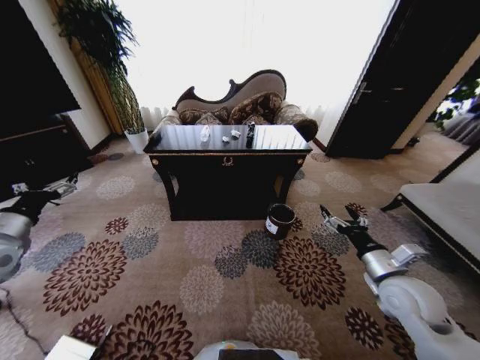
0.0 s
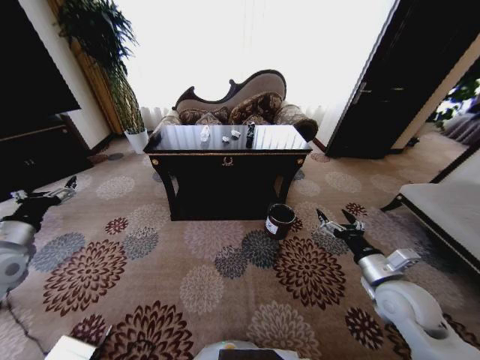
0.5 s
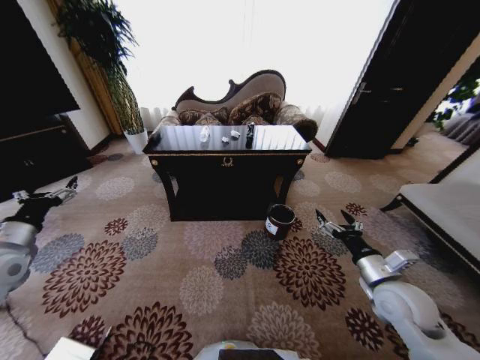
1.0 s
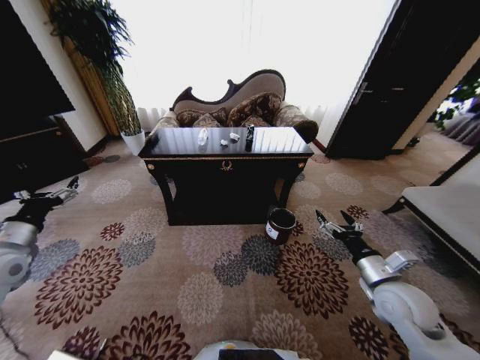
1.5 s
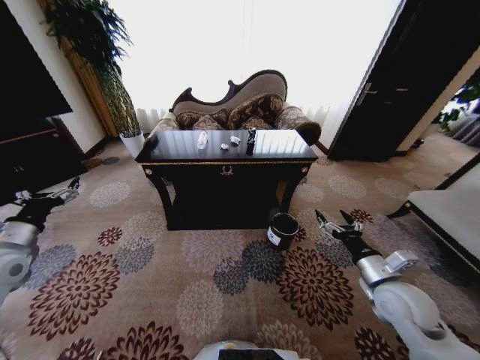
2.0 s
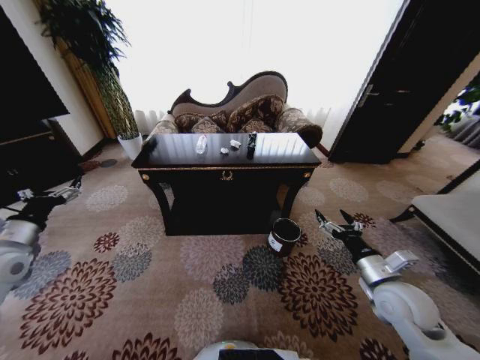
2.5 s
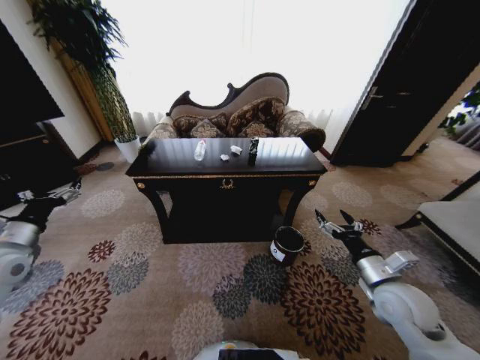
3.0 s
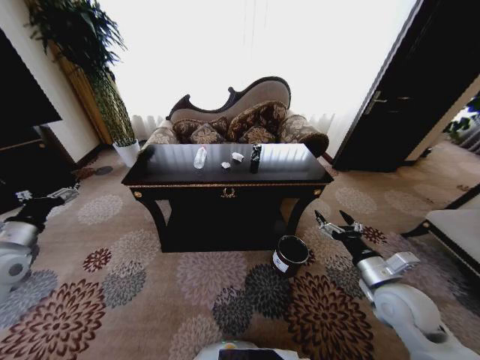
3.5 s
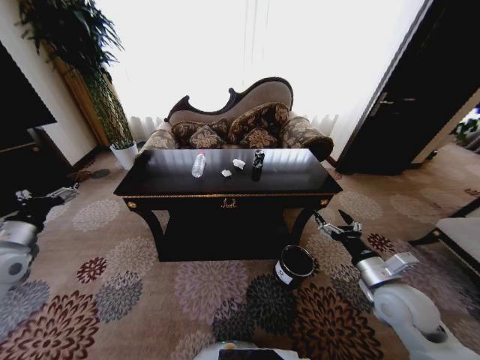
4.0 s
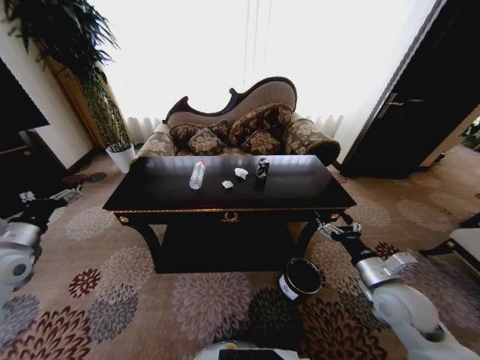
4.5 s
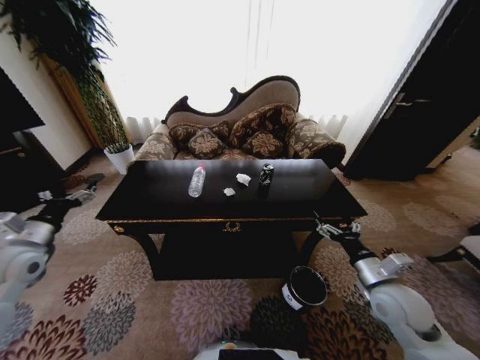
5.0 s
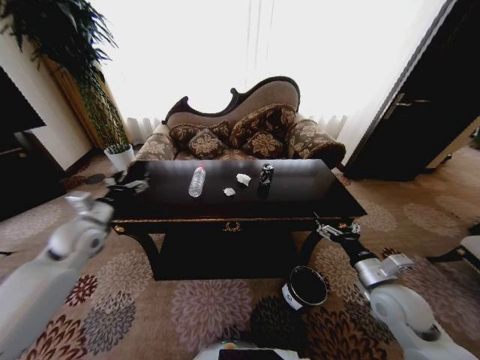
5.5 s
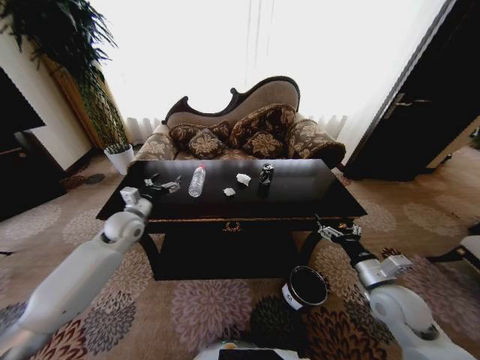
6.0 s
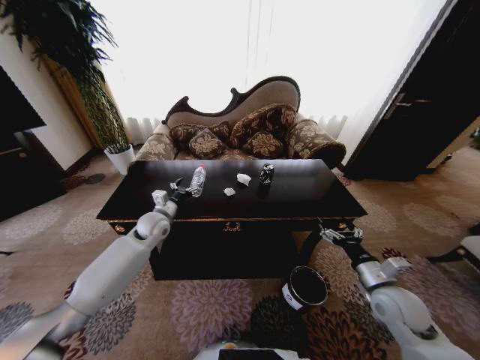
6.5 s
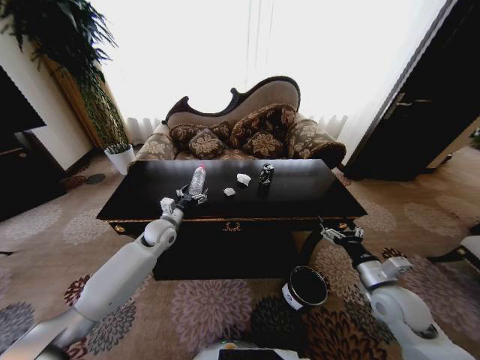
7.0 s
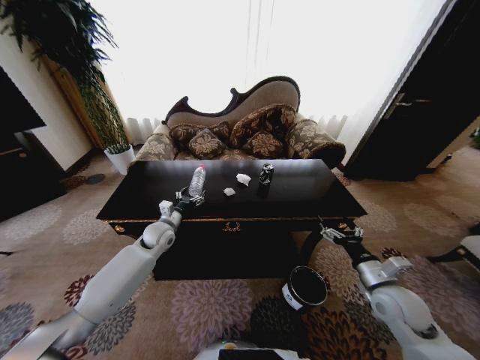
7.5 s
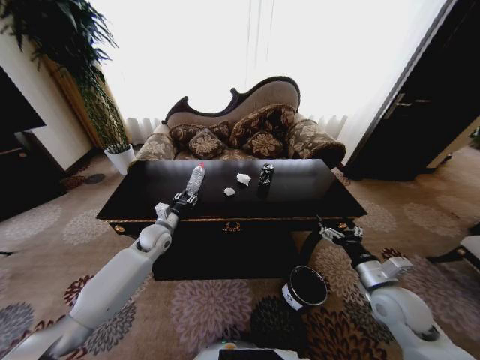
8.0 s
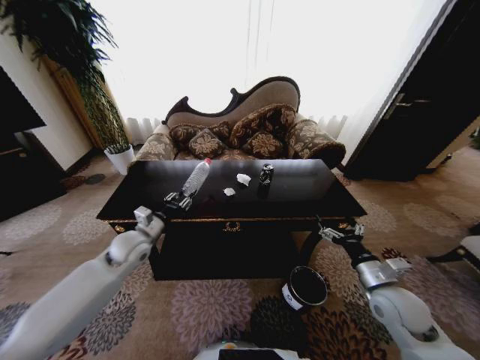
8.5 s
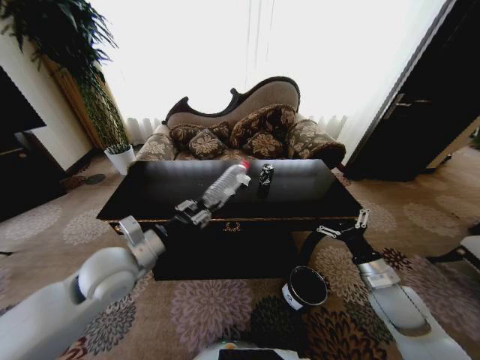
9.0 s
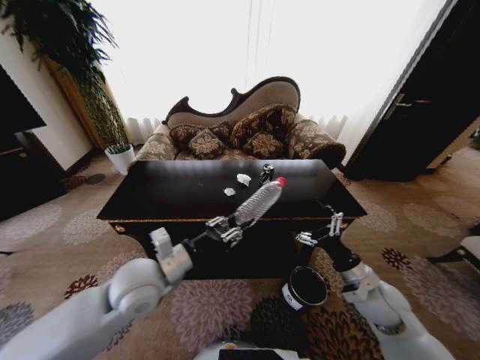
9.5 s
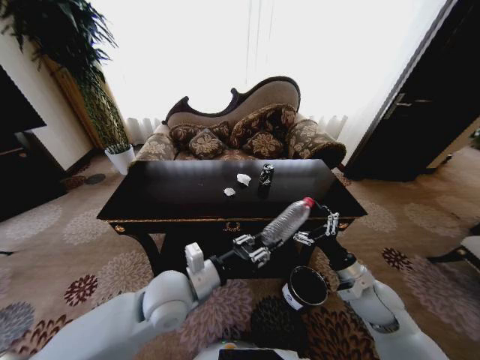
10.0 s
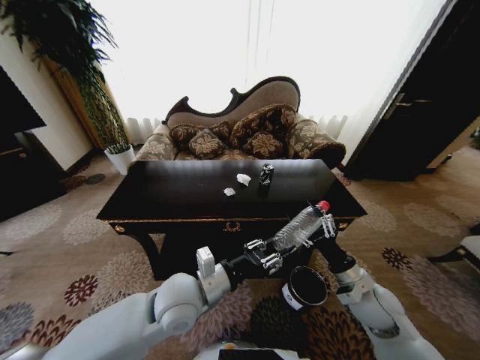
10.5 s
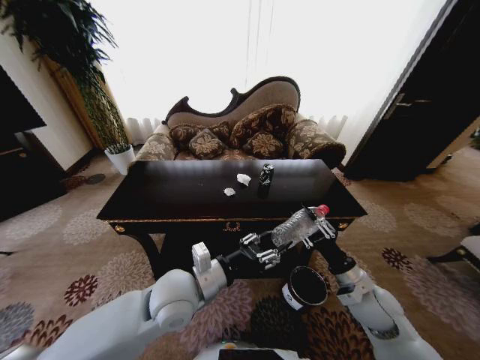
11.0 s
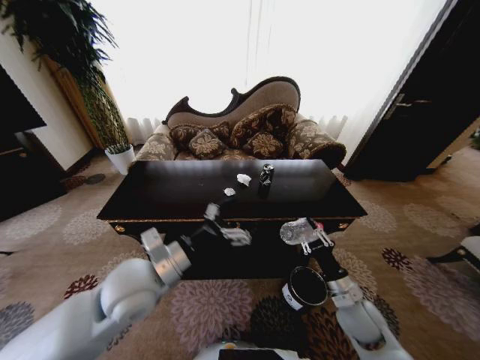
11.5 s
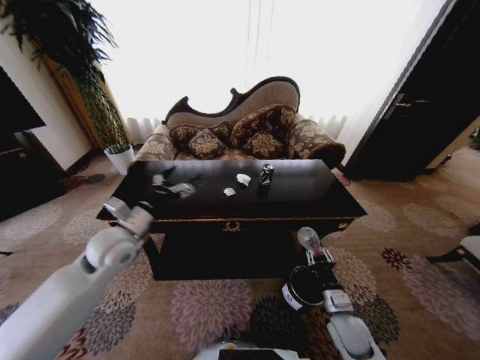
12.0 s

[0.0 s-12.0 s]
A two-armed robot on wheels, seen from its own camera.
Task of the whole recording: Move to the front of the table and place the trash on the table into the trash bin.
4.0 to 6.0 s: The left gripper shifts some 25 cm to the right and forward.
6.0 to 8.0 s: The left gripper travels downward and to the right by some 10 cm, and closes.
8.0 to 10.0 s: The left gripper shifts approximately 25 cm backward, to the right and upward.
10.0 to 12.0 s: The left gripper shifts approximately 20 cm to the left and forward, and opens its fingers, while the right gripper moves downward, some 10 cm, and closes up.

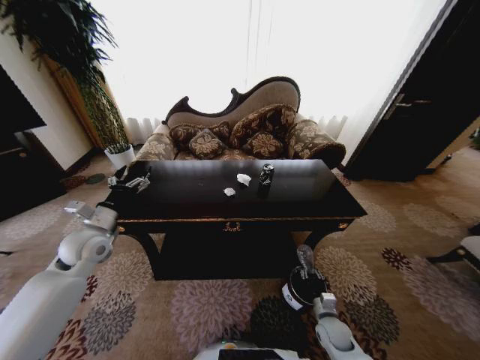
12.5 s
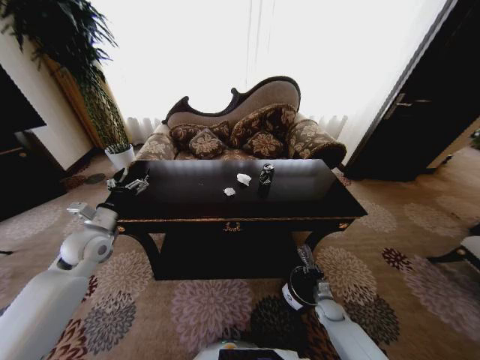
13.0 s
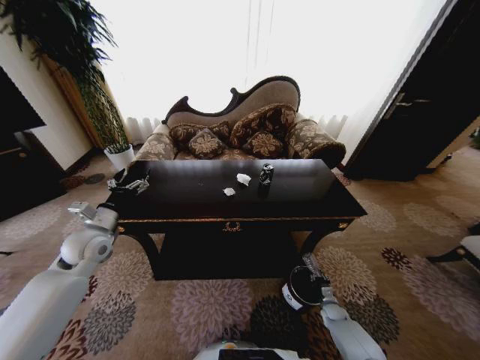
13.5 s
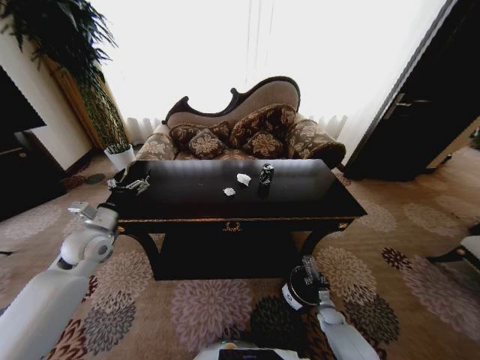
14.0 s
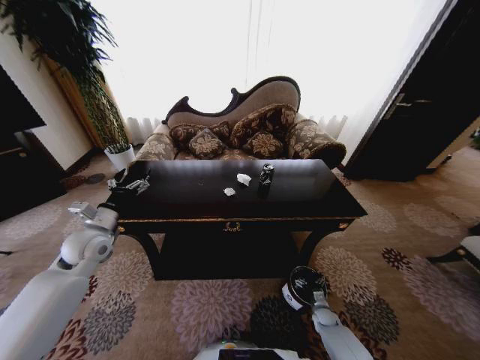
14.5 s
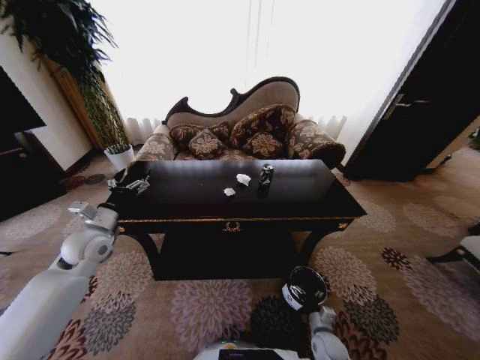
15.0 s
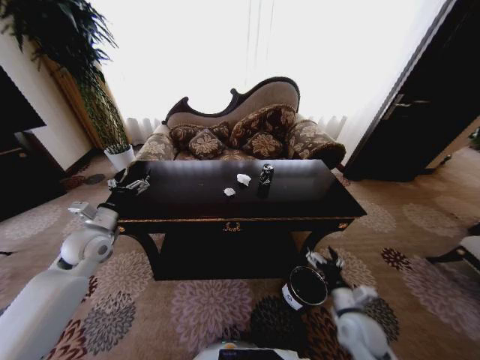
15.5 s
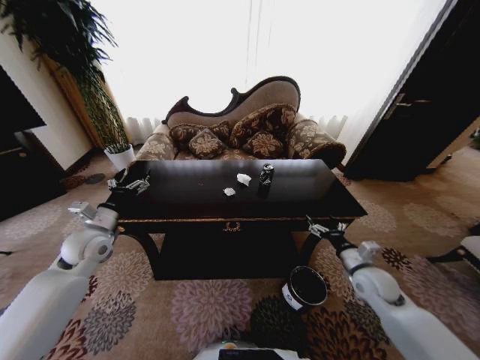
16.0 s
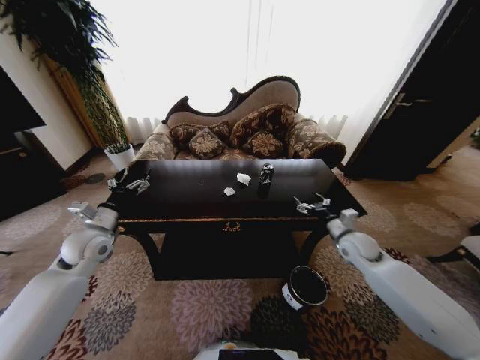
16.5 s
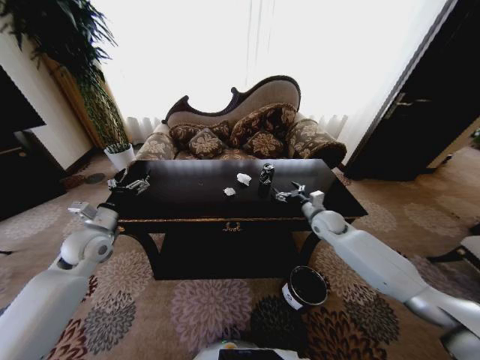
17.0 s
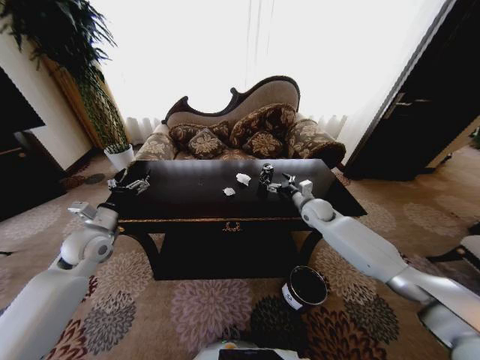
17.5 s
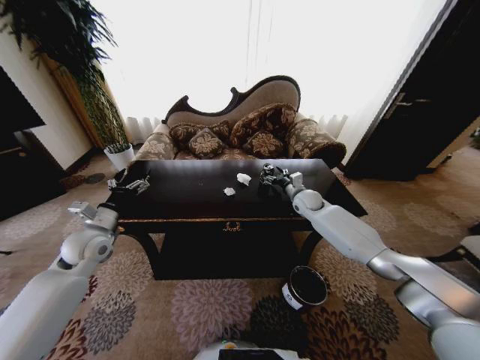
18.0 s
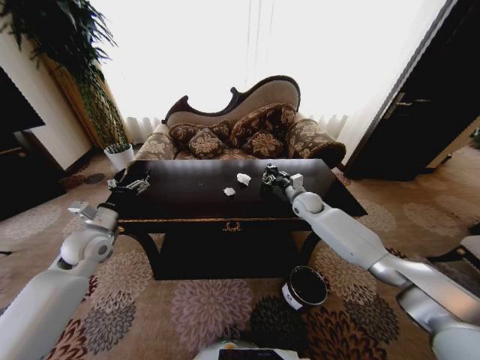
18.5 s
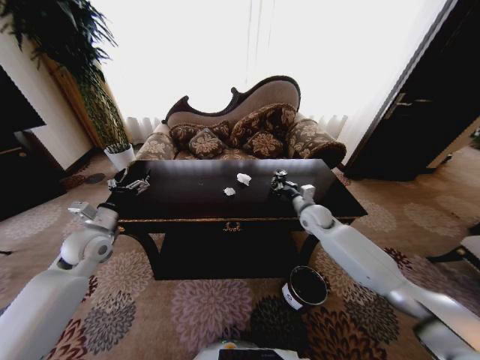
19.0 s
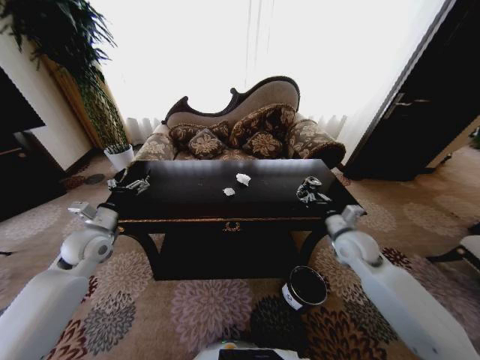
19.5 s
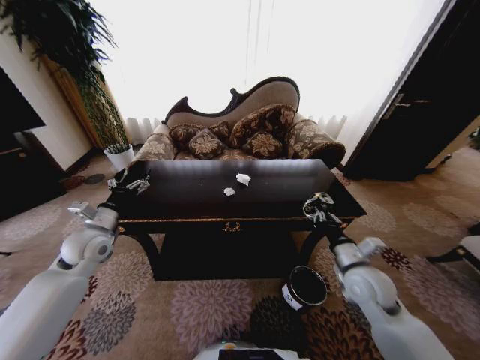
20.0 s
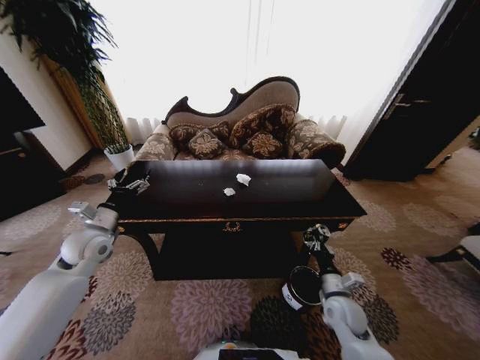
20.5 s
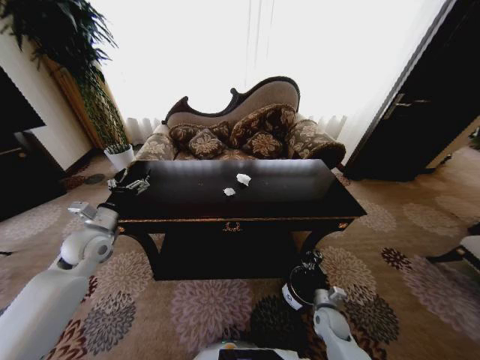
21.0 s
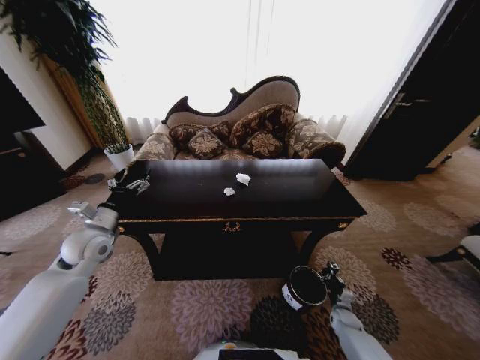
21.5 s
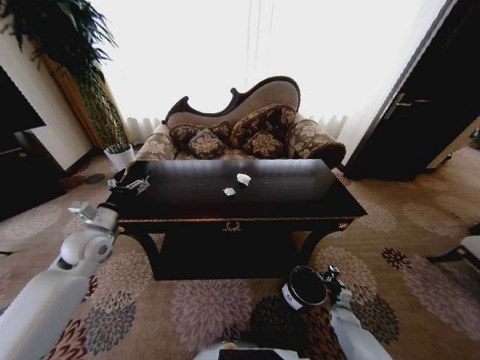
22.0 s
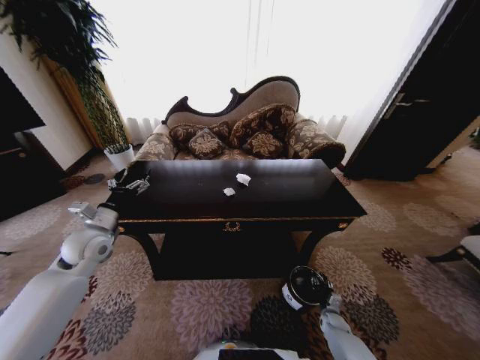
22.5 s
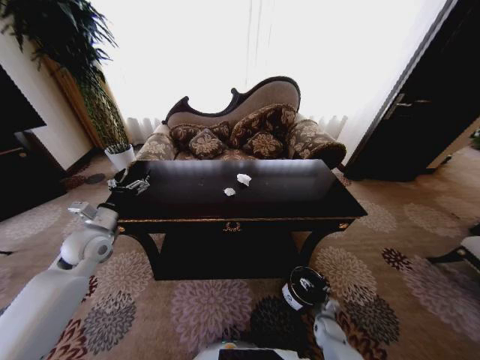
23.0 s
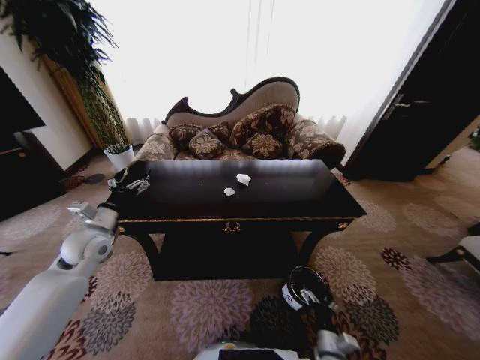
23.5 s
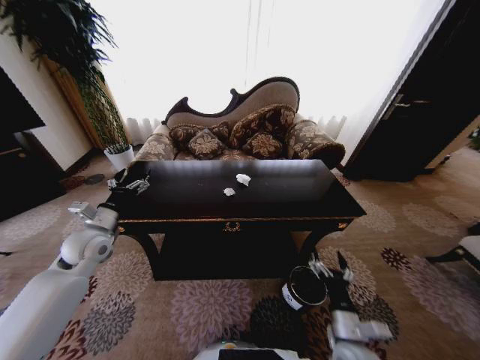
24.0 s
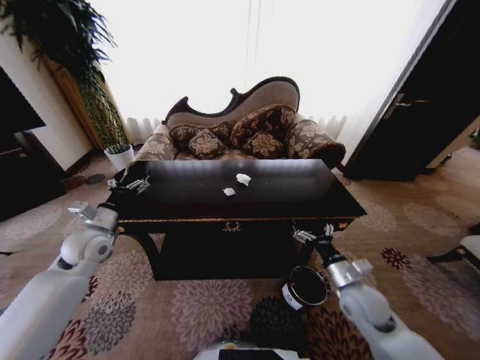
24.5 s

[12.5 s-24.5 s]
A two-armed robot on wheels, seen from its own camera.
Task of the whole recording: Move to the front of the table and place the trash on the table into the trash bin.
12.5 to 14.5 s: The right gripper is displaced downward, to the right and forward by approximately 15 cm, and opens its fingers.
14.5 to 16.5 s: The right gripper shifts roughly 35 cm upward.
16.5 to 18.5 s: The right gripper is displaced forward and to the left by roughly 20 cm, and closes its fingers.
18.5 to 20.5 s: The right gripper shifts approximately 35 cm backward and downward.
20.5 to 22.5 s: The right gripper goes about 25 cm downward, and opens up.
22.5 to 24.5 s: The right gripper goes roughly 35 cm upward, and opens.

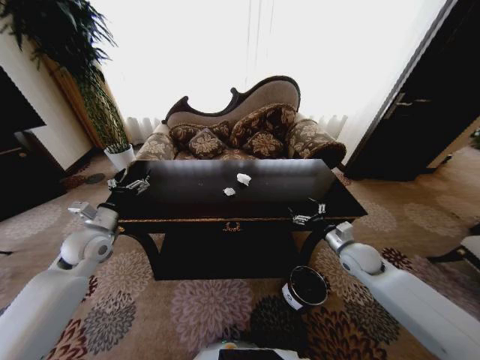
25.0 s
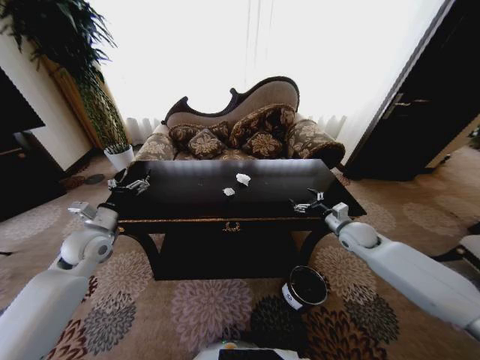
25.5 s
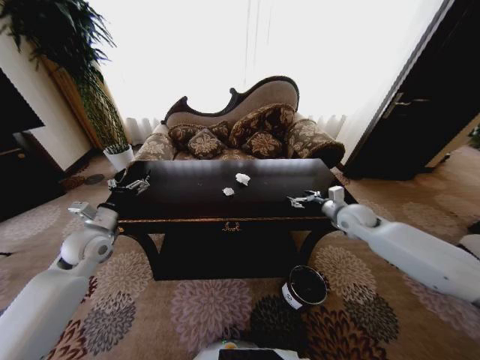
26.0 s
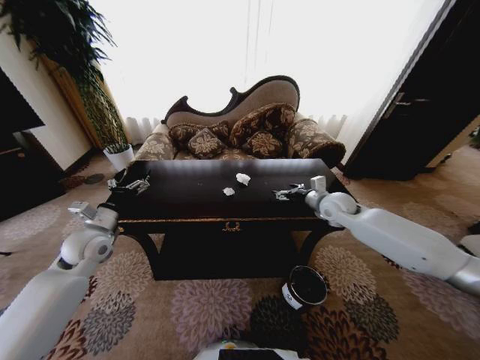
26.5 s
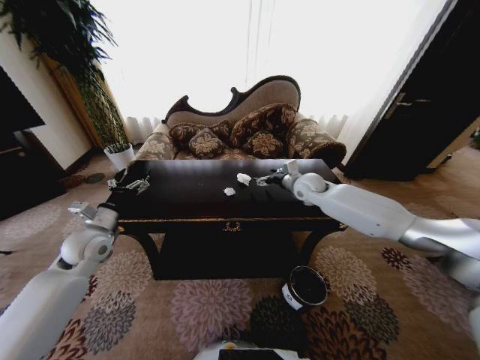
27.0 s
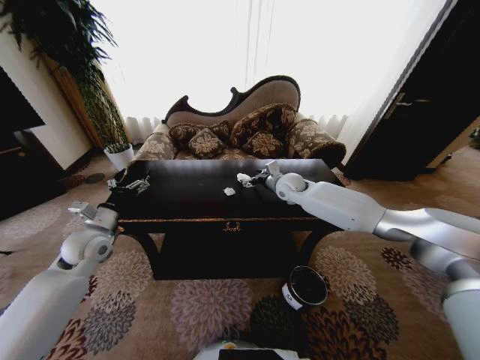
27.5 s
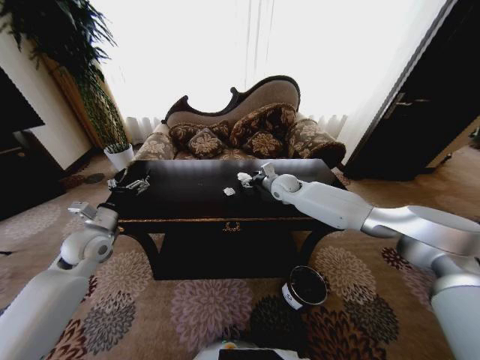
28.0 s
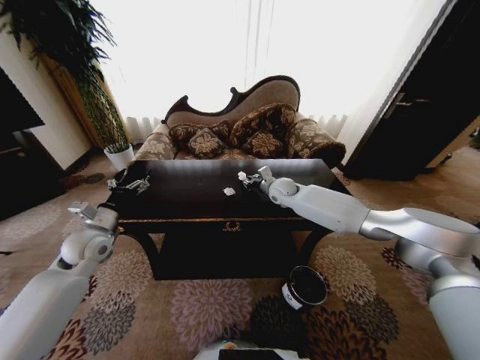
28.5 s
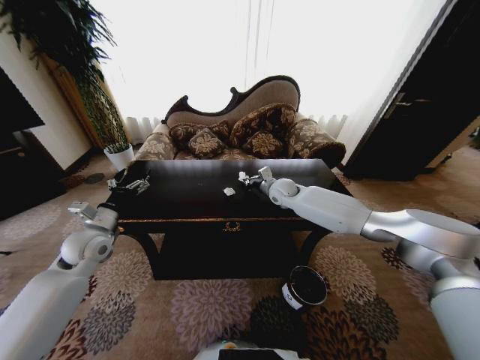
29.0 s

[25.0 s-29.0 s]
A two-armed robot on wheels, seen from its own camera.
Task of the whole recording: Move to the front of the table and place the trash on the table into the trash bin.
25.0 to 27.0 s: The right gripper goes about 25 cm forward, upward and to the left.
27.0 to 29.0 s: The right gripper shifts approximately 10 cm to the left, and closes its fingers.
